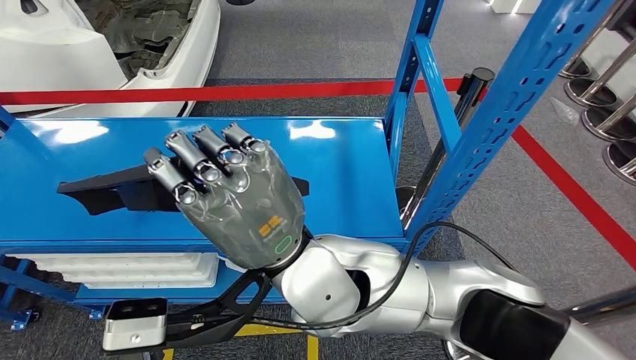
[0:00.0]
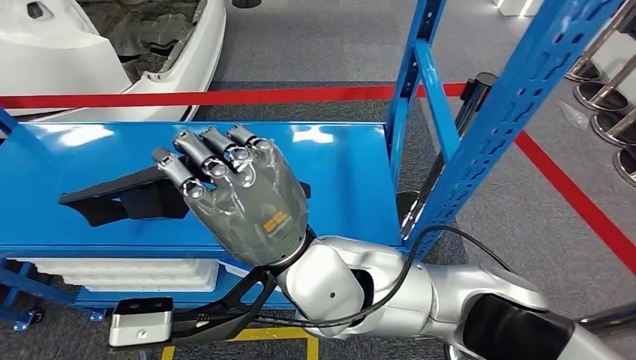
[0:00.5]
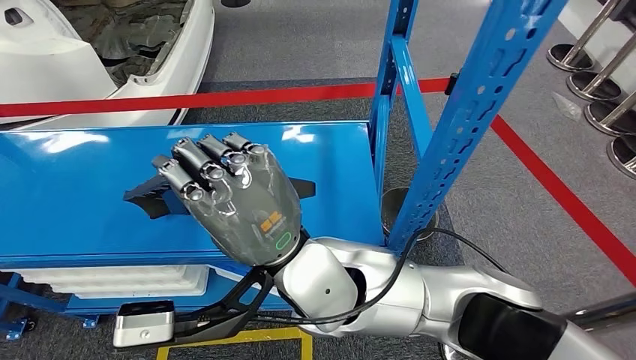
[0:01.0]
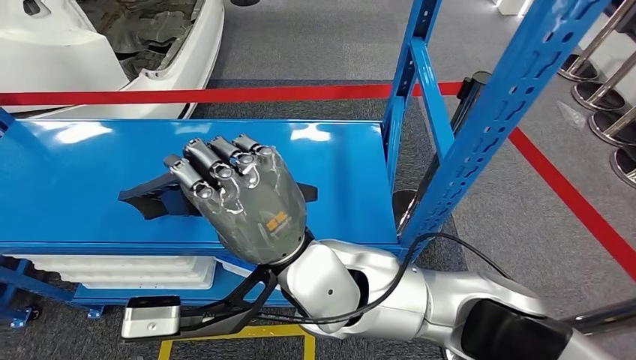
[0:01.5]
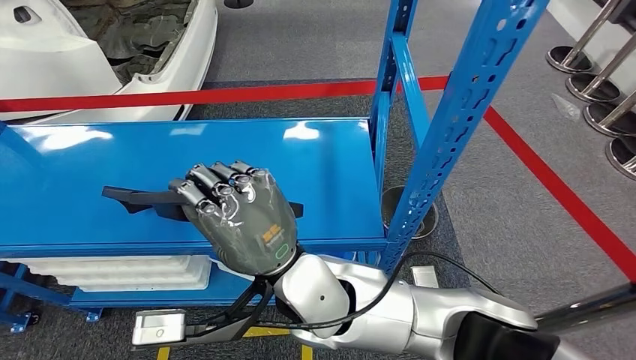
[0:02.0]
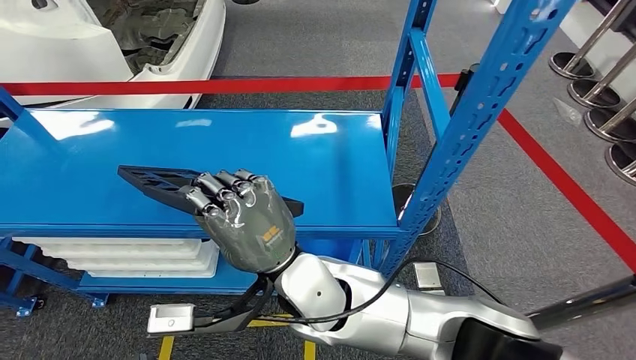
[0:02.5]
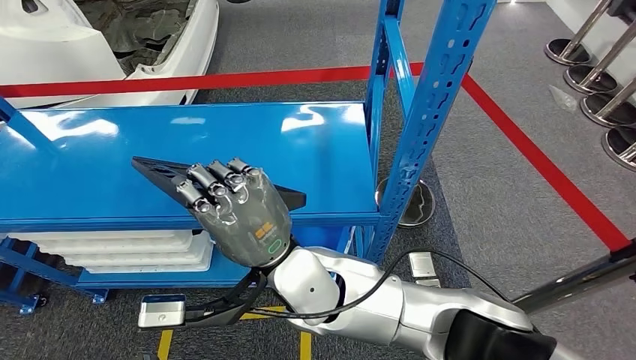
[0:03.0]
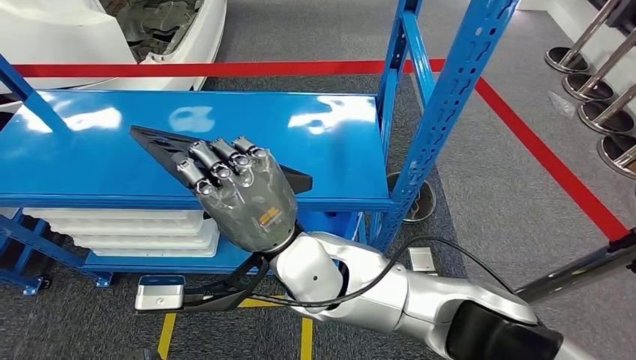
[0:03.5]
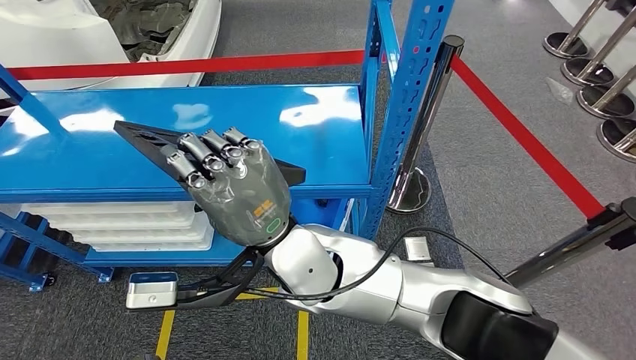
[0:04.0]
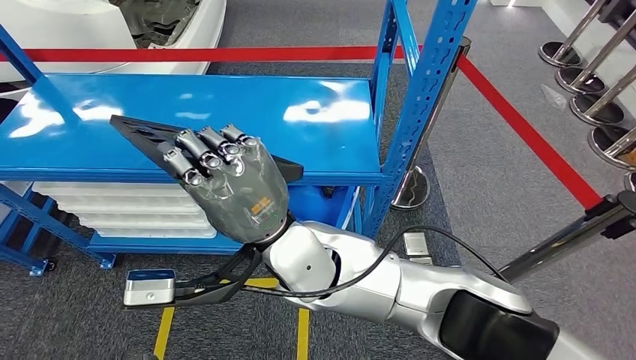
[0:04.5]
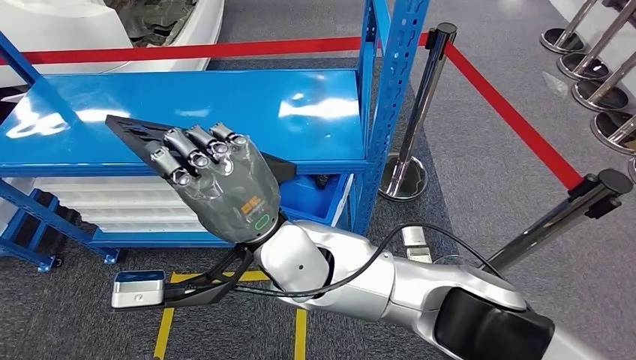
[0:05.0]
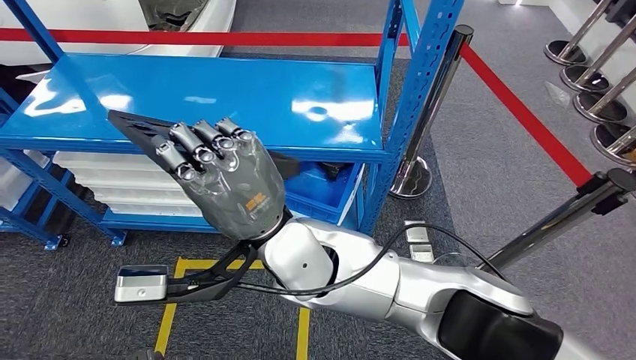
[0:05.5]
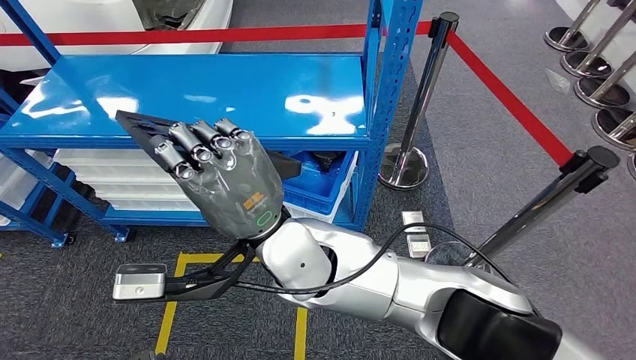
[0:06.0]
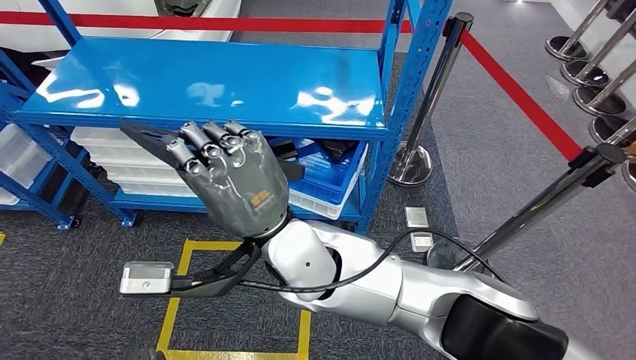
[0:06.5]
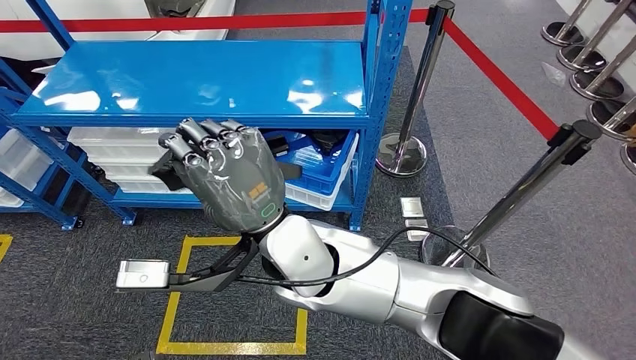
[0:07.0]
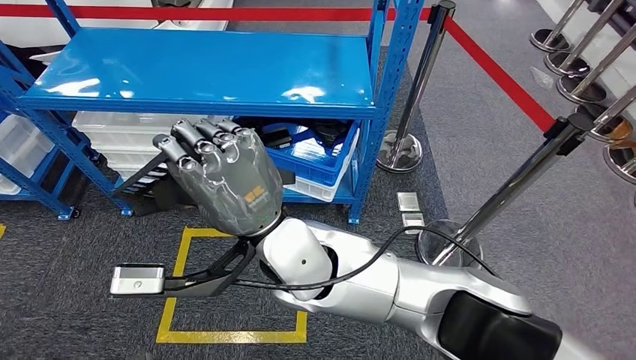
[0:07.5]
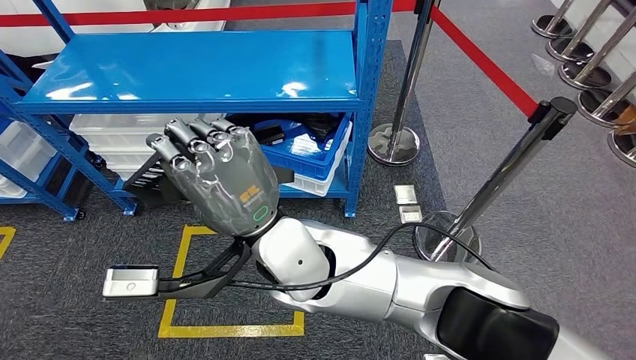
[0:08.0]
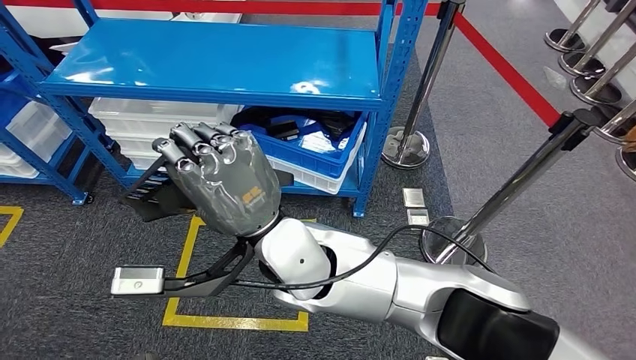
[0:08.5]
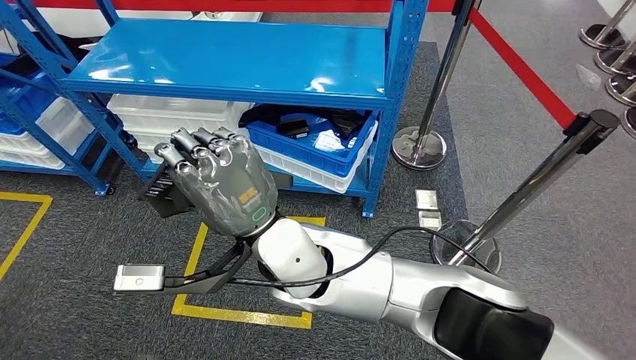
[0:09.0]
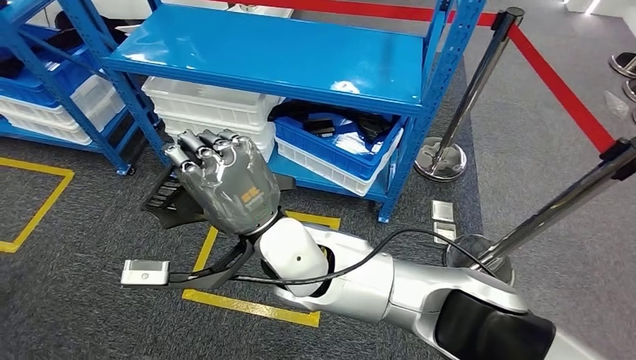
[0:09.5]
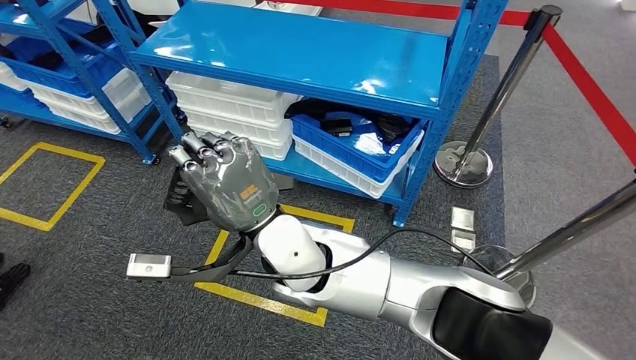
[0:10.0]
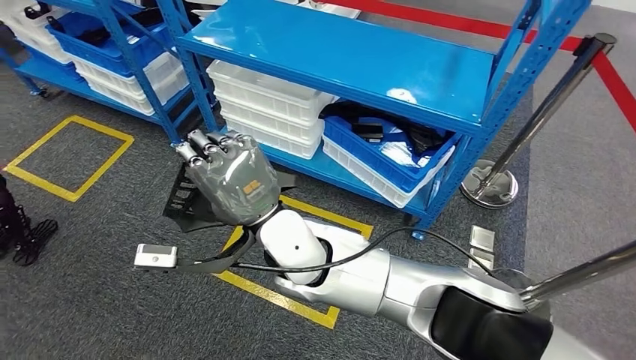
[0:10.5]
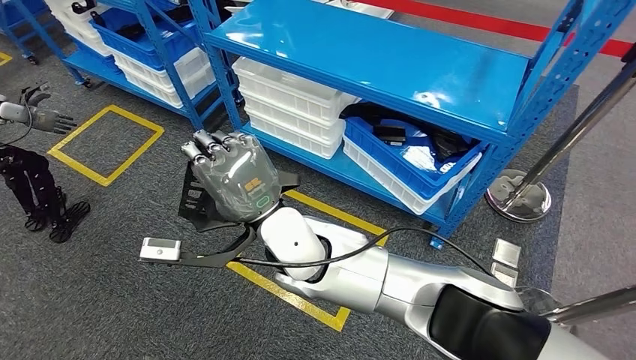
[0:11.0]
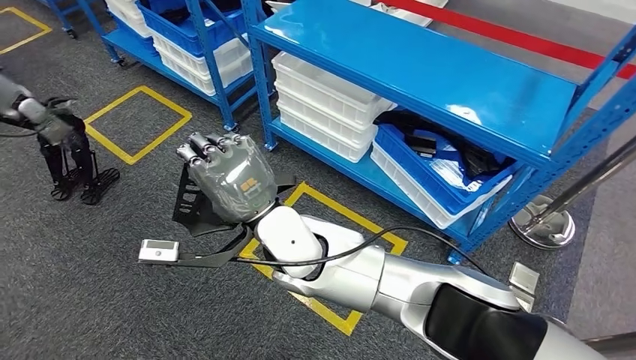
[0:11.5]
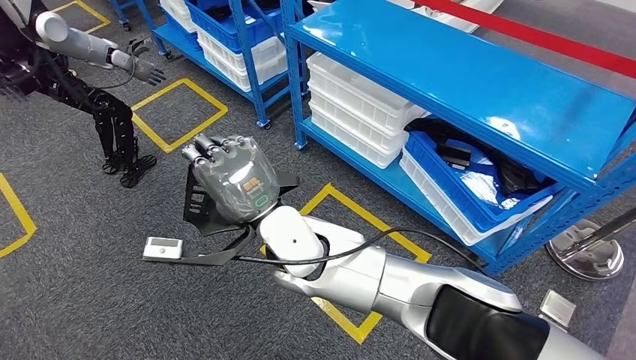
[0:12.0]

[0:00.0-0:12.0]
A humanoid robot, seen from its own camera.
Step, 0:00.0 to 0:08.0: Pick up the large material from the shelf.

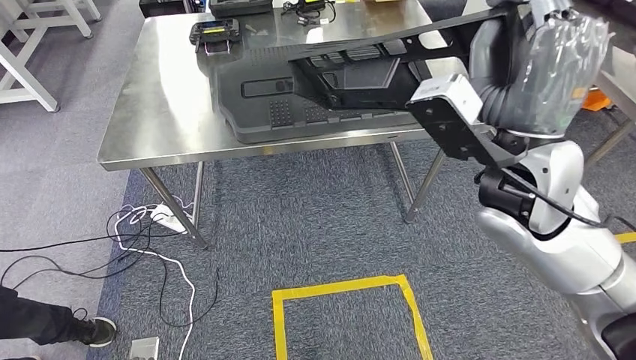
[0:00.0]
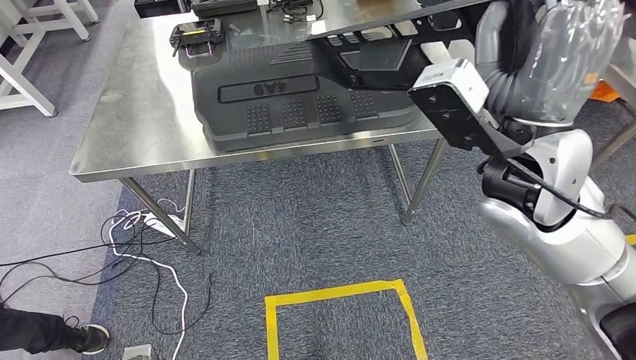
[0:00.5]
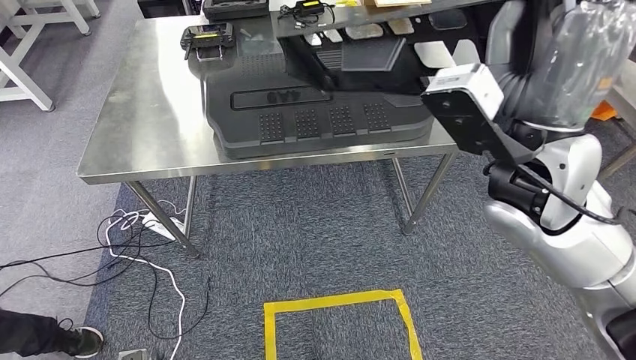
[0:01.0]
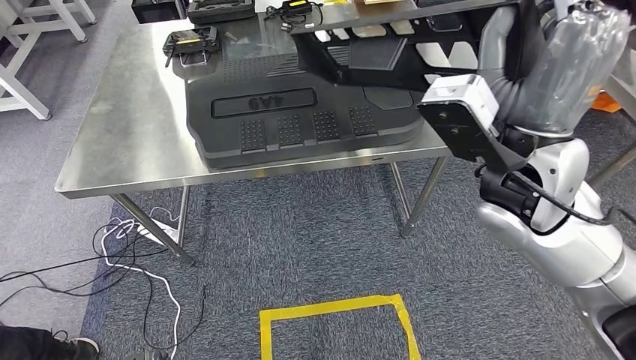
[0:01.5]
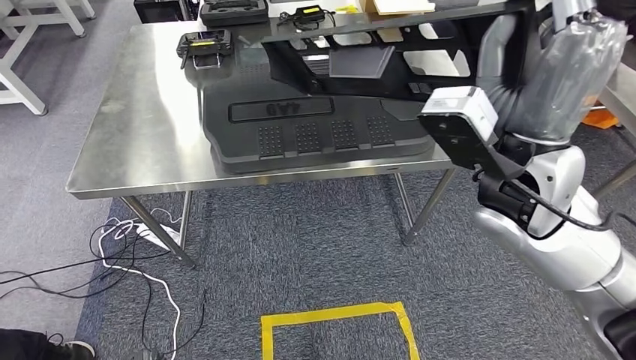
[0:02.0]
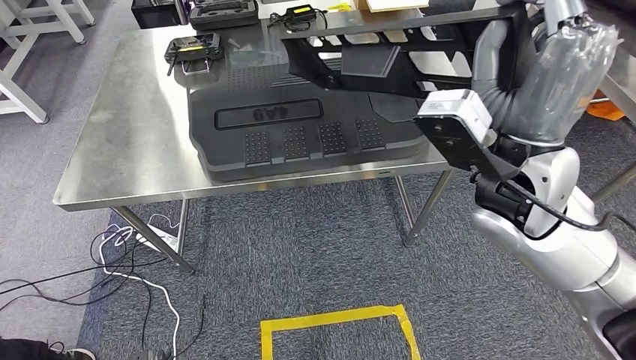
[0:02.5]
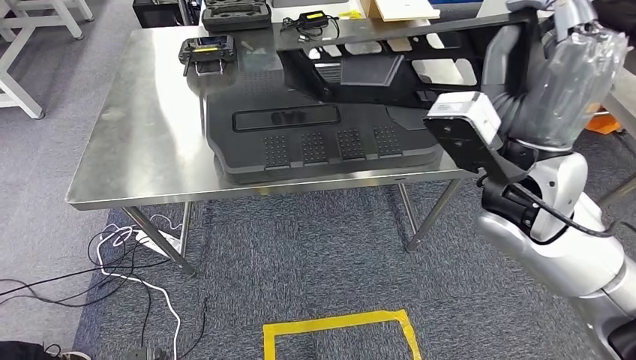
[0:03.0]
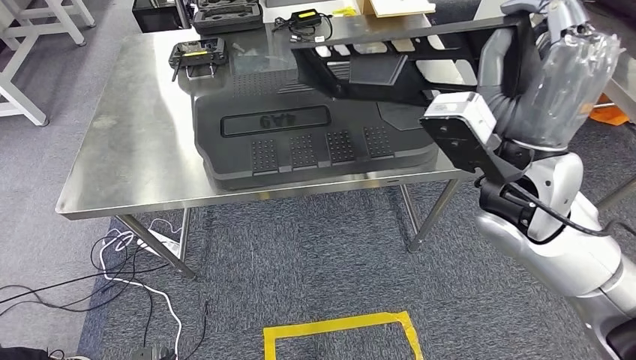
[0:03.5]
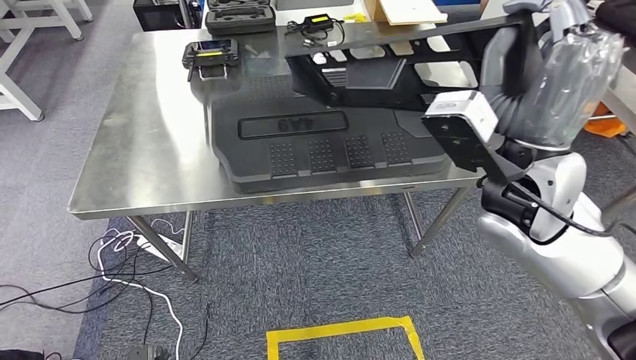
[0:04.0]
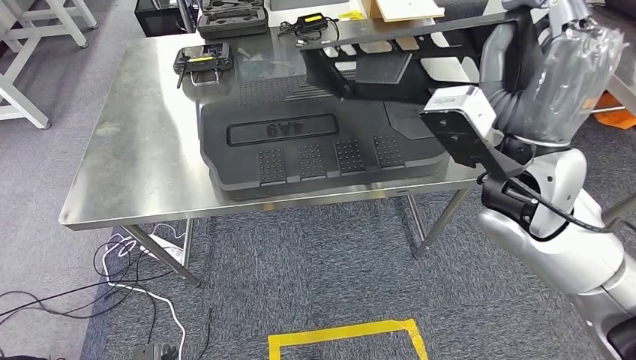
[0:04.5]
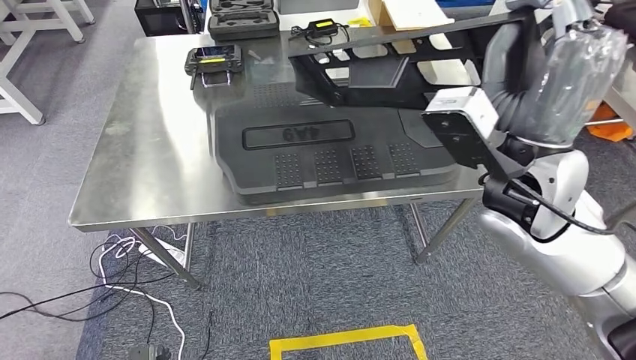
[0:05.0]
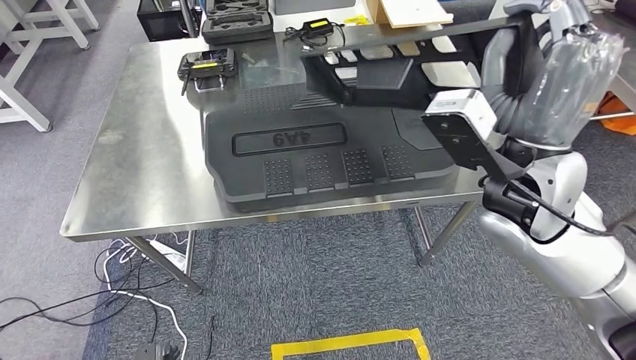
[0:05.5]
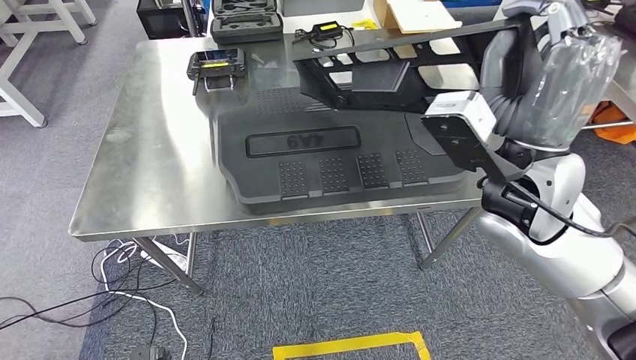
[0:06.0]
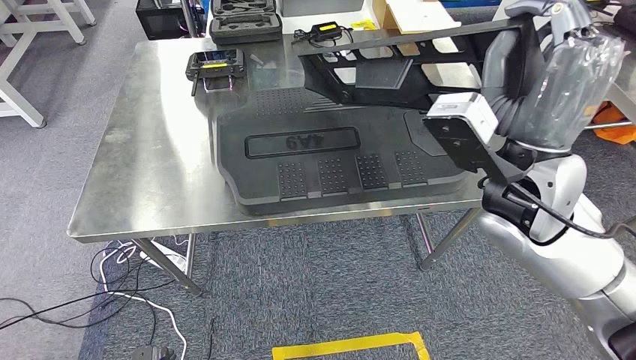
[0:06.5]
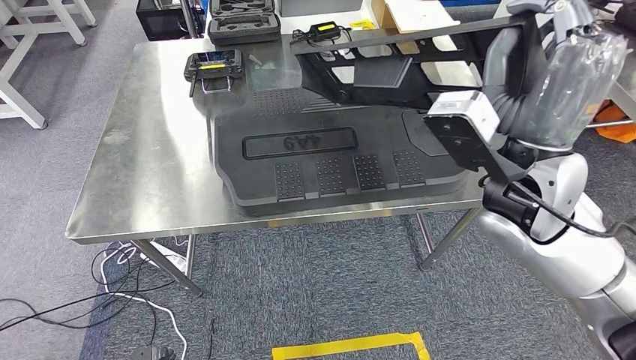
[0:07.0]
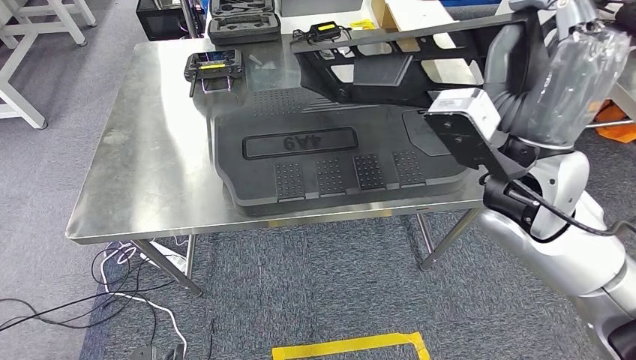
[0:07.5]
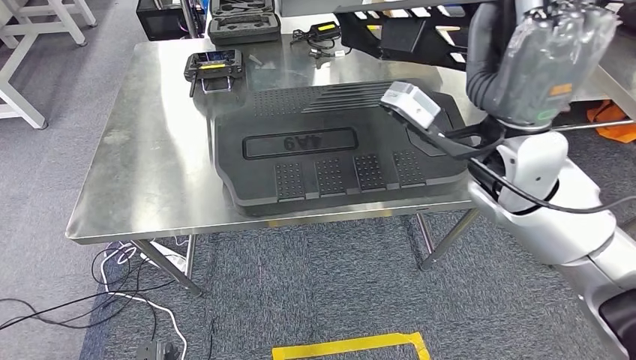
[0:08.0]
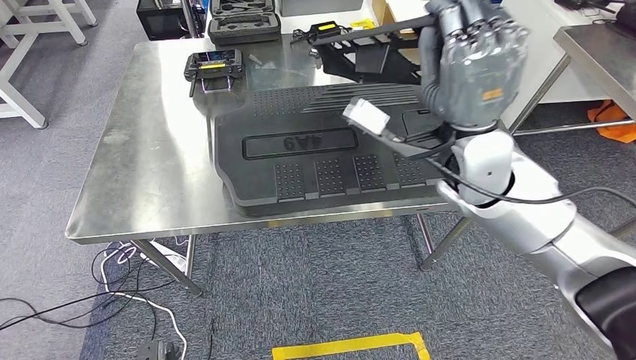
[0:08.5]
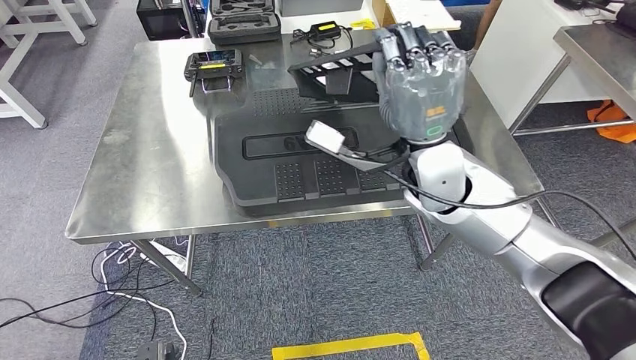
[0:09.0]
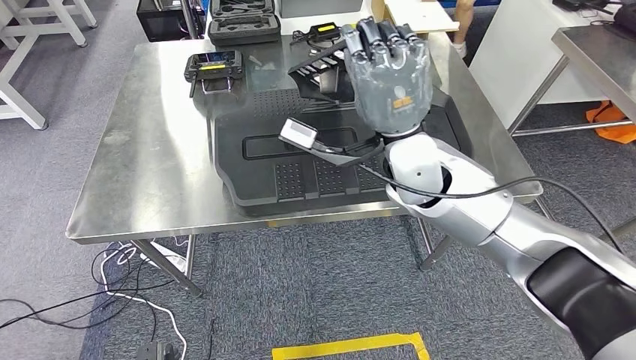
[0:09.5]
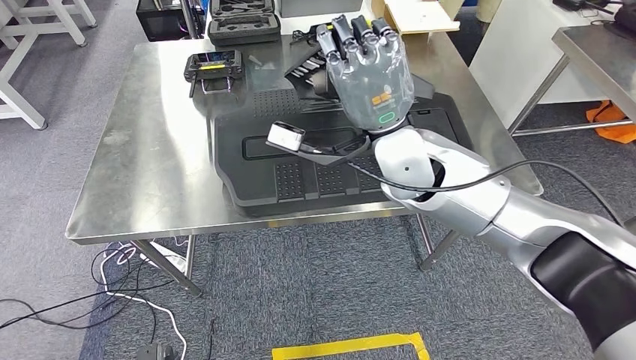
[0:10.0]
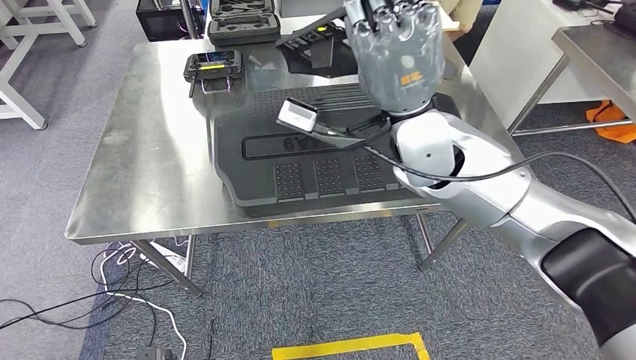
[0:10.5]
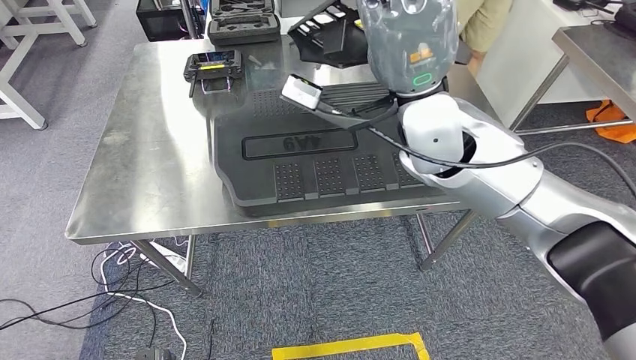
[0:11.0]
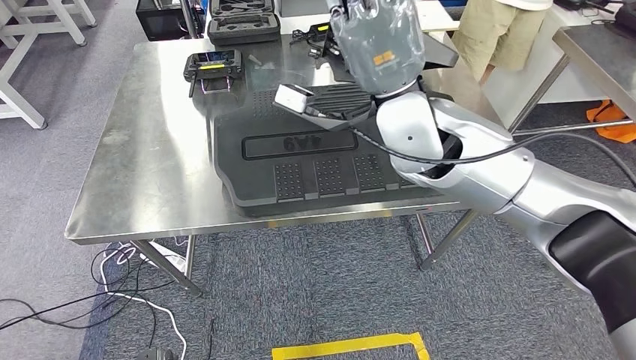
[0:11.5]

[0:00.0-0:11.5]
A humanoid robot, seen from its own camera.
0:06.0 to 0:07.5: The two hands keep their place.
